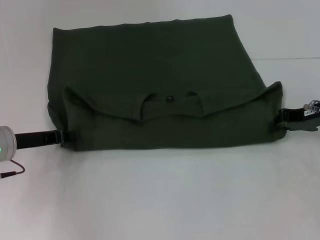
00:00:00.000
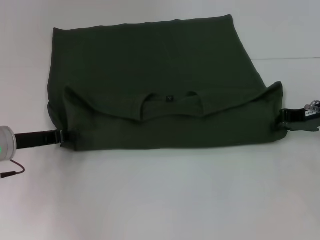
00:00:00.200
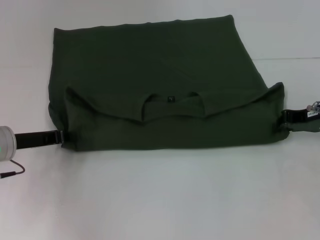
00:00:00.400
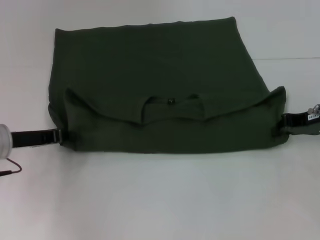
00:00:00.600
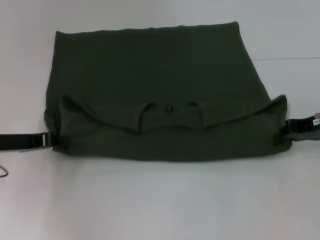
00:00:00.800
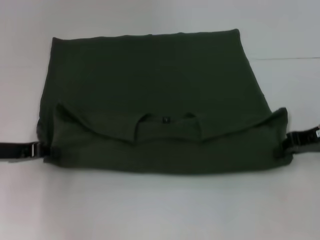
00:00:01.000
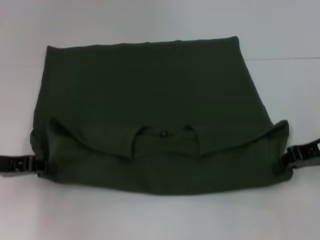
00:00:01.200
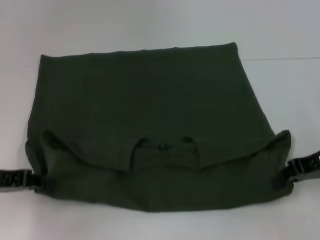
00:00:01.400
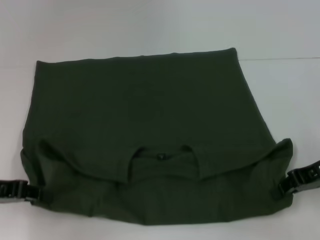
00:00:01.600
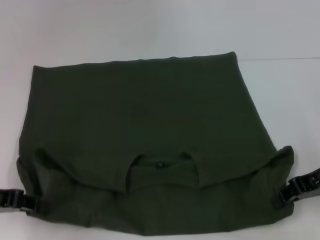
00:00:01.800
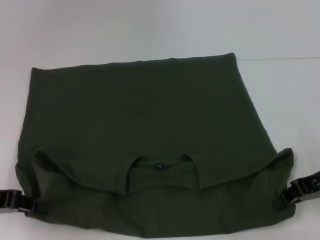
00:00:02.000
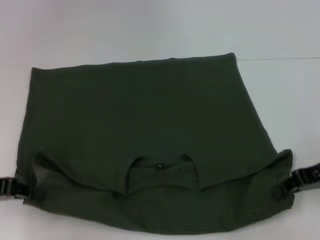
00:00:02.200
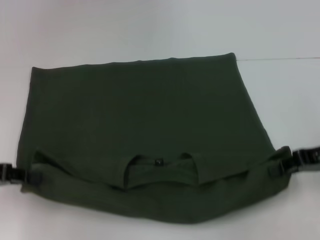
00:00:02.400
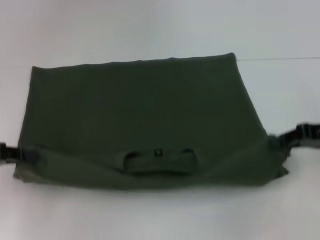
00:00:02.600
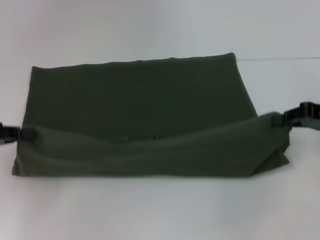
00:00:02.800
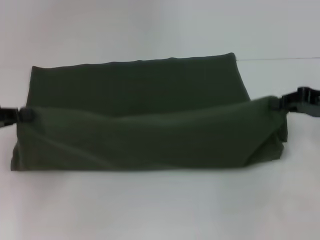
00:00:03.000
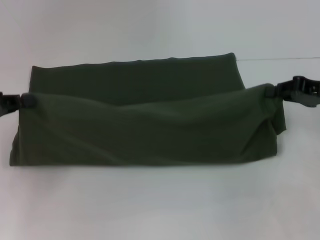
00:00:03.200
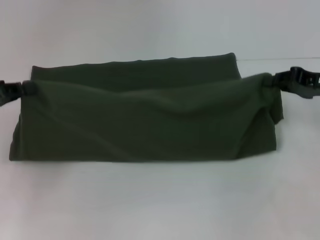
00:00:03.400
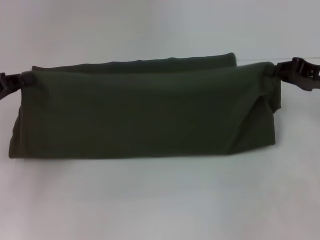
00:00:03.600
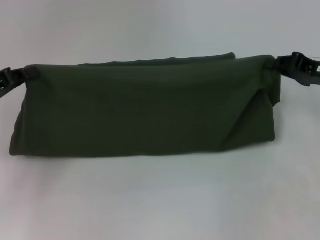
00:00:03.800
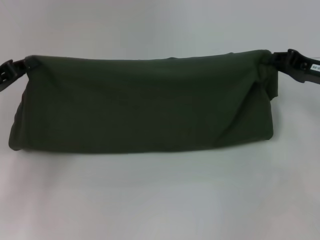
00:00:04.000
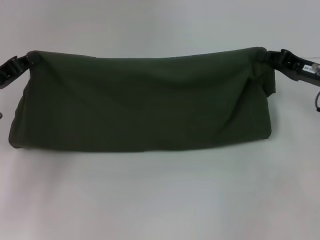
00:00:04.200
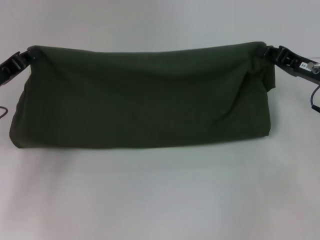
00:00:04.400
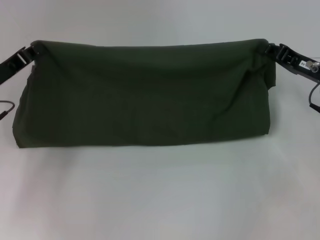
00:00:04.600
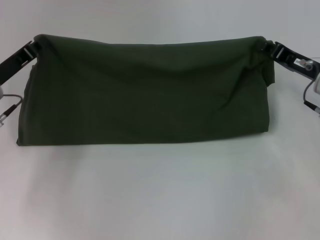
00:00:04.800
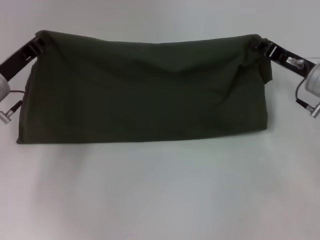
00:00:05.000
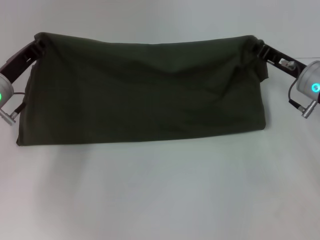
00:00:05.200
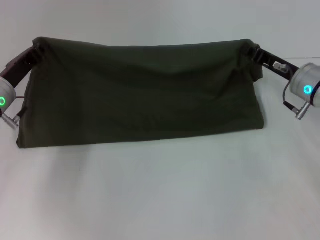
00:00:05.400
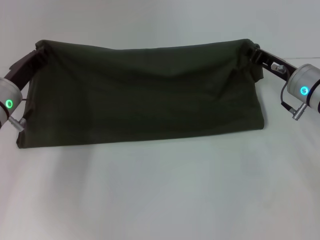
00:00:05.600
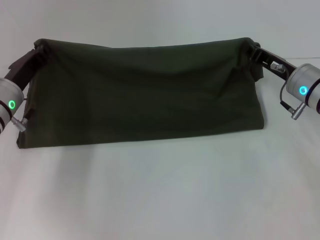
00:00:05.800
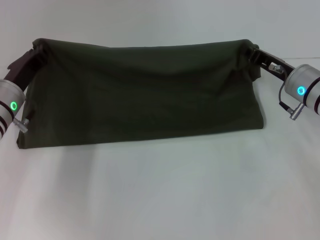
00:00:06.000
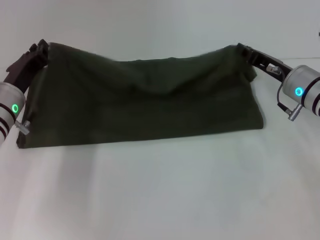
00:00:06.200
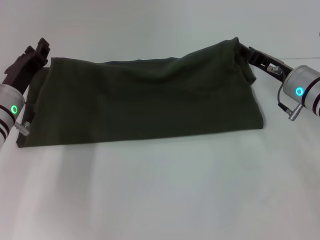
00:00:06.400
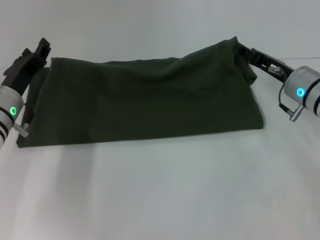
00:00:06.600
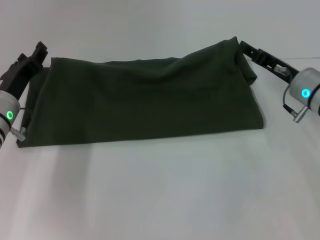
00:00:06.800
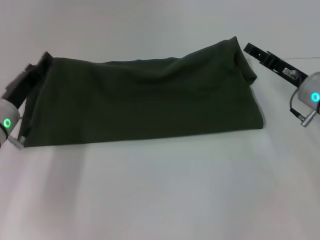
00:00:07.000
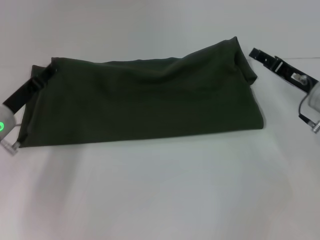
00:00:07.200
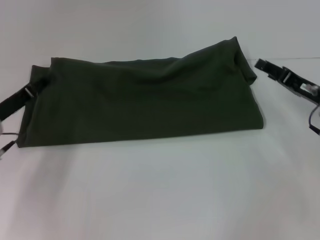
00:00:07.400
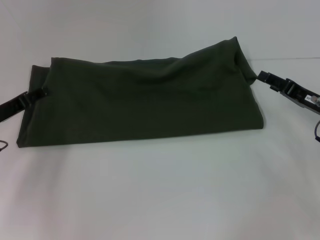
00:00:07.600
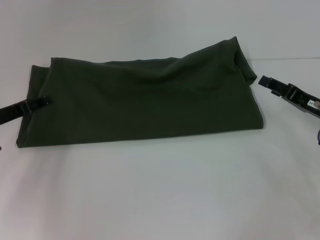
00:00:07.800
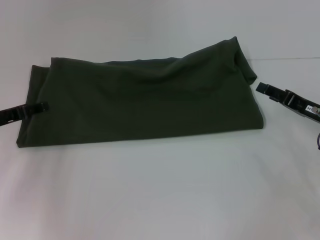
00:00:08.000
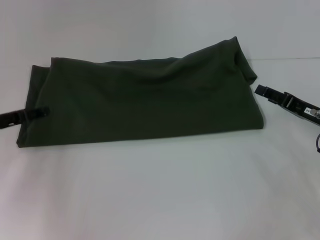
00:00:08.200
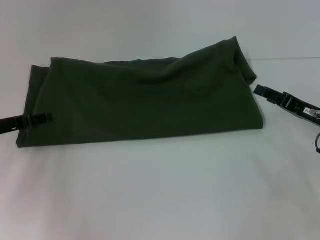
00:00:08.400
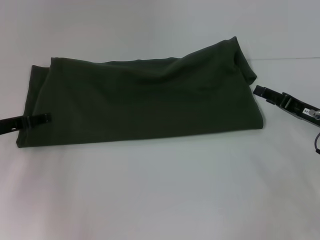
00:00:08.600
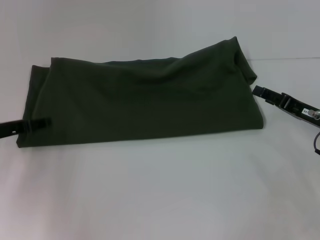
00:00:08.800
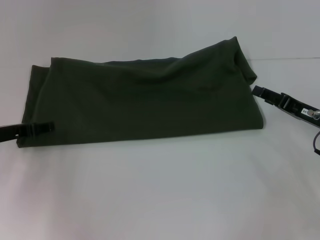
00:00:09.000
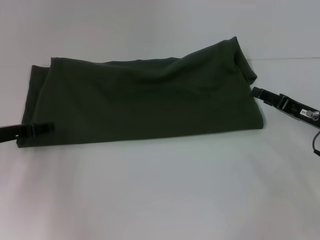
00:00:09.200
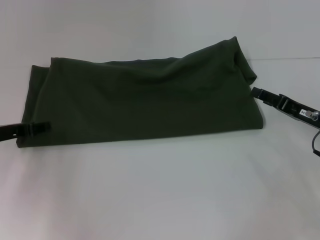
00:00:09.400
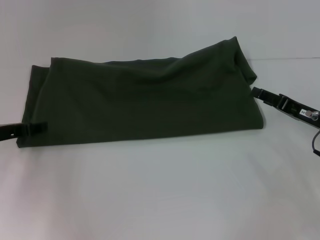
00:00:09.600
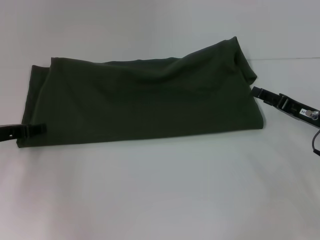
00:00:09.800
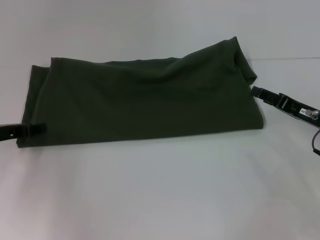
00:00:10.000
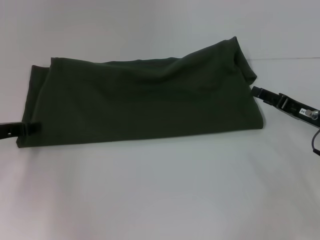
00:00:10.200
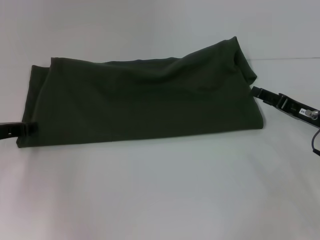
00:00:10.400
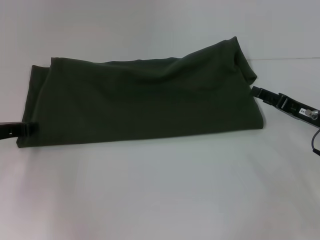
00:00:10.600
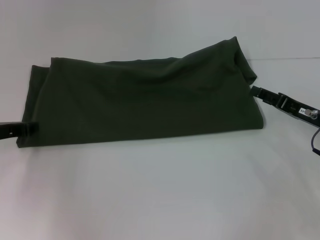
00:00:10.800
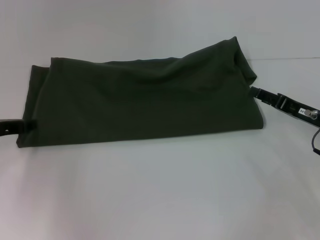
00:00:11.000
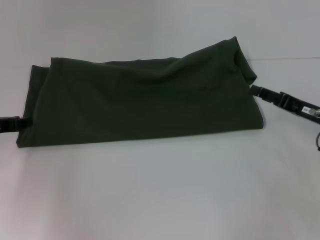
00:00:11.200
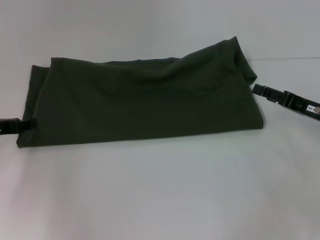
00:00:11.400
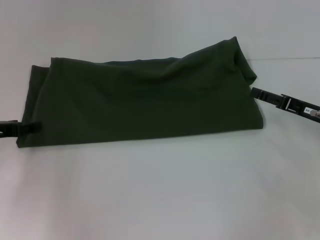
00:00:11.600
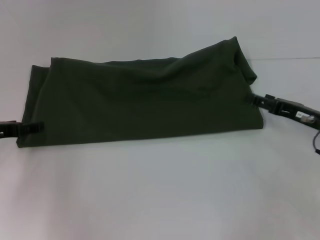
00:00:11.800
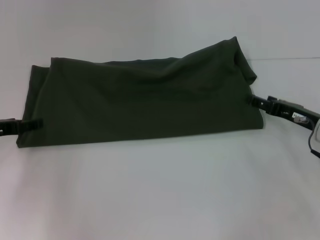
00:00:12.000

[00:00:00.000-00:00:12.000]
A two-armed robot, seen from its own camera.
Step, 00:00:00.000 to 00:00:02.000: Pull the clothes with your left hand.
Step, 00:00:00.000 to 00:00:02.000: Pull the clothes with your right hand.
Step, 00:00:02.200 to 00:00:06.400: Fold the clothes with your left hand.
Step, 00:00:02.200 to 00:00:06.400: Fold the clothes with your right hand.
00:00:00.000 to 00:00:01.600: The two grippers go approximately 5 cm backward.
00:00:01.600 to 00:00:03.000: The left gripper changes place by about 5 cm, while the right gripper shifts by about 5 cm.
00:00:03.000 to 00:00:04.400: The left gripper is displaced forward by approximately 5 cm. Meanwhile the right gripper shifts by about 5 cm.
00:00:04.400 to 00:00:06.000: The left gripper heads to the right, covering roughly 5 cm. The right gripper ends up about 5 cm from where it was.
00:00:06.000 to 00:00:07.600: The right gripper heads to the right and backward, covering approximately 10 cm, and opens, while the left gripper shifts some 5 cm to the left, and opens.

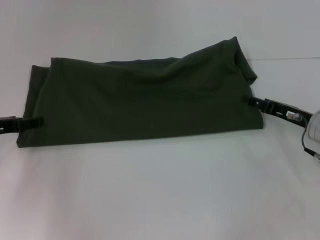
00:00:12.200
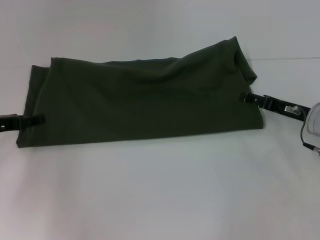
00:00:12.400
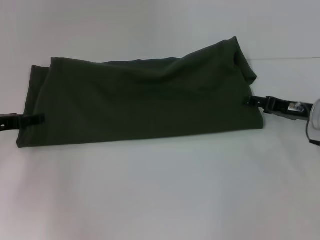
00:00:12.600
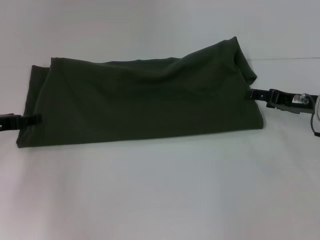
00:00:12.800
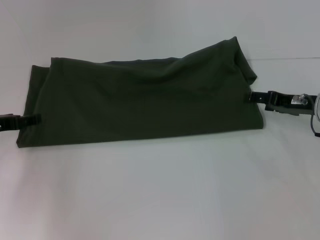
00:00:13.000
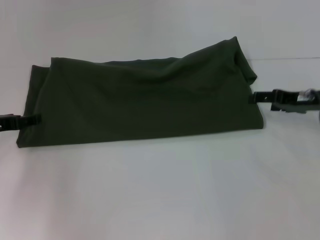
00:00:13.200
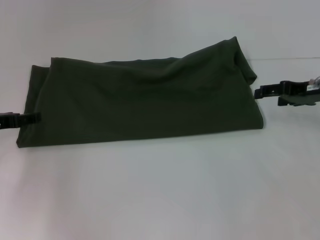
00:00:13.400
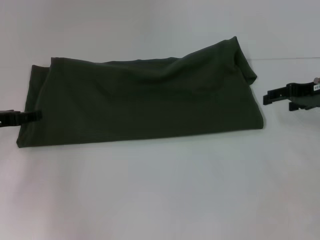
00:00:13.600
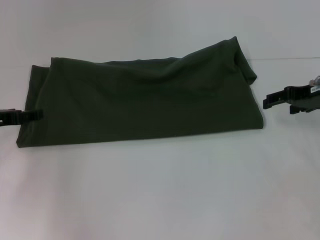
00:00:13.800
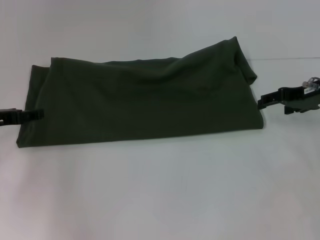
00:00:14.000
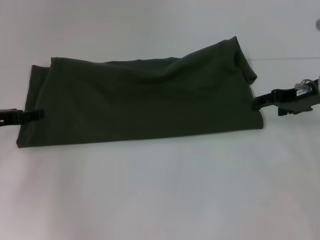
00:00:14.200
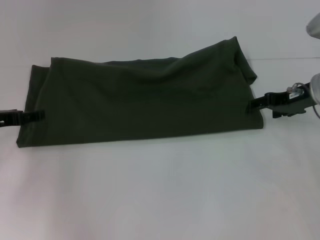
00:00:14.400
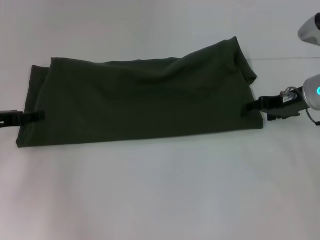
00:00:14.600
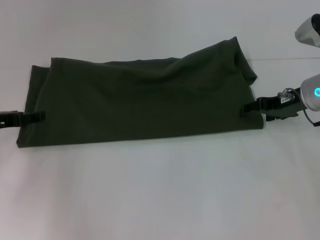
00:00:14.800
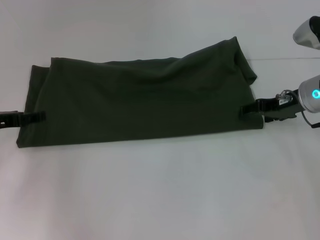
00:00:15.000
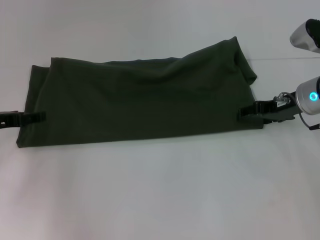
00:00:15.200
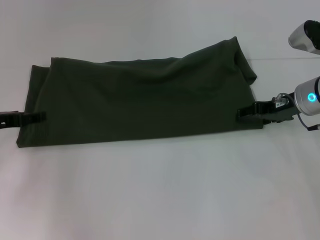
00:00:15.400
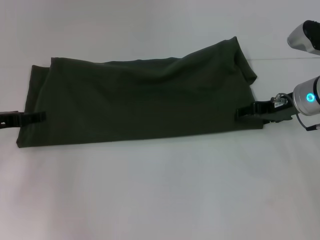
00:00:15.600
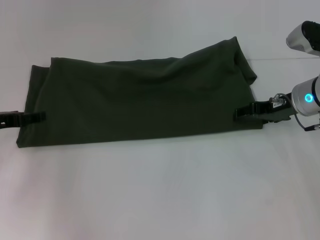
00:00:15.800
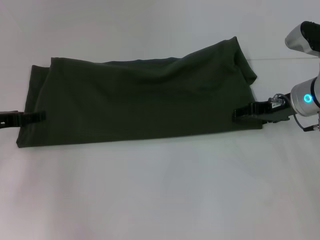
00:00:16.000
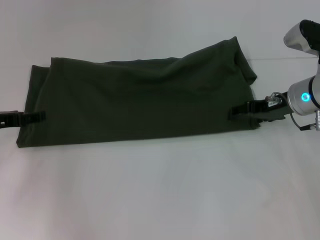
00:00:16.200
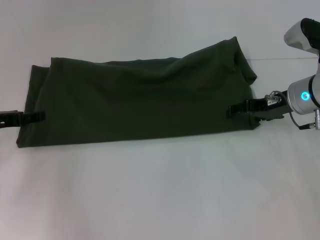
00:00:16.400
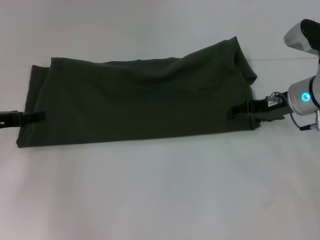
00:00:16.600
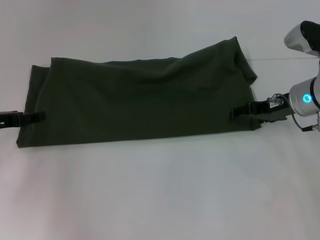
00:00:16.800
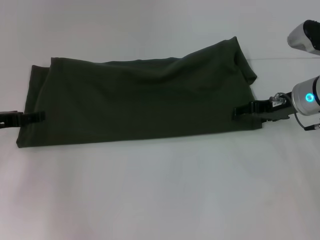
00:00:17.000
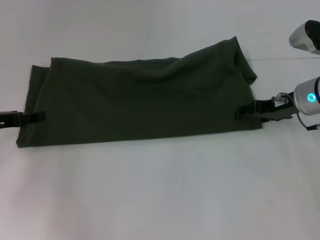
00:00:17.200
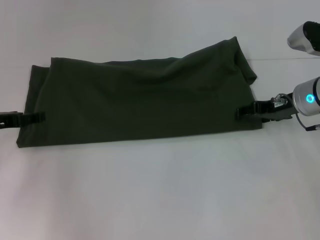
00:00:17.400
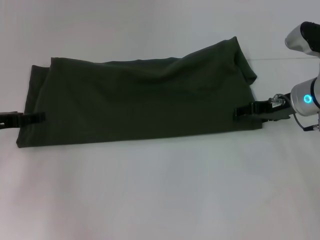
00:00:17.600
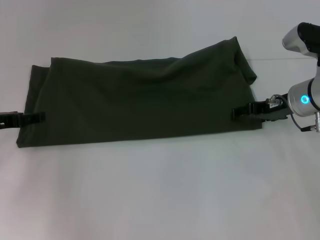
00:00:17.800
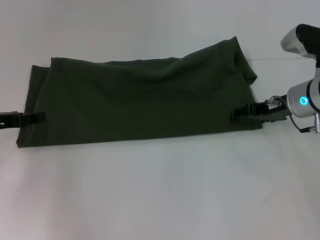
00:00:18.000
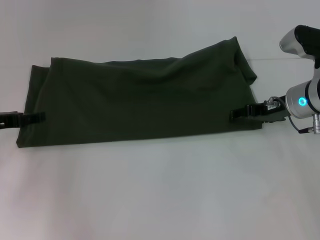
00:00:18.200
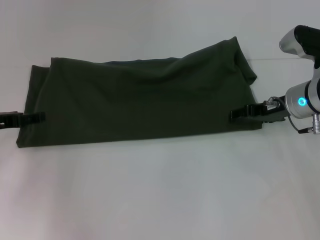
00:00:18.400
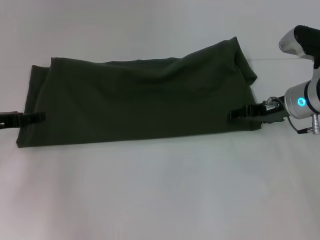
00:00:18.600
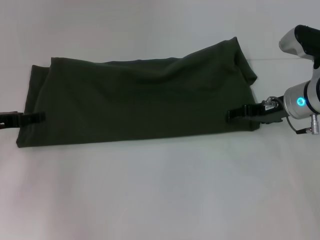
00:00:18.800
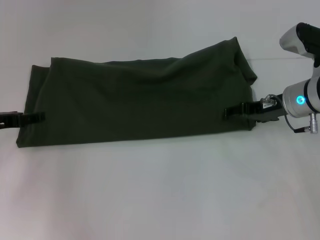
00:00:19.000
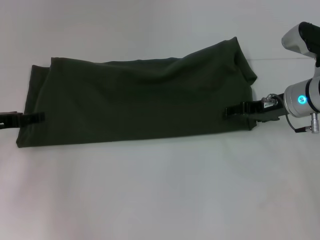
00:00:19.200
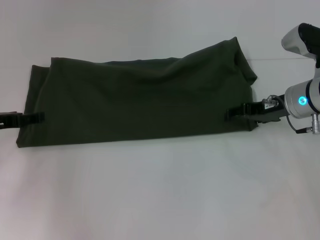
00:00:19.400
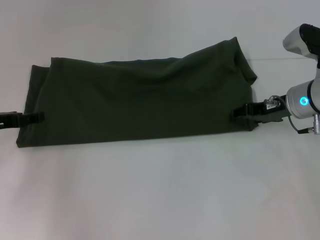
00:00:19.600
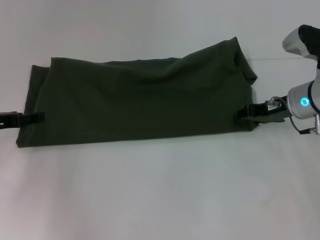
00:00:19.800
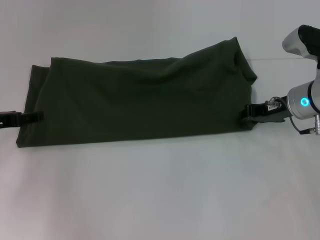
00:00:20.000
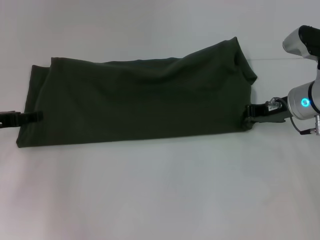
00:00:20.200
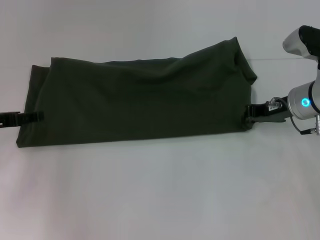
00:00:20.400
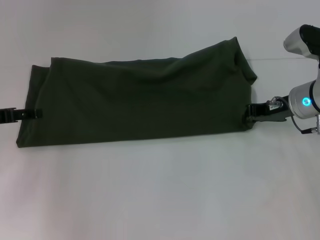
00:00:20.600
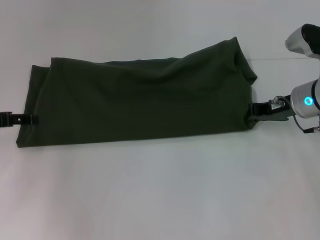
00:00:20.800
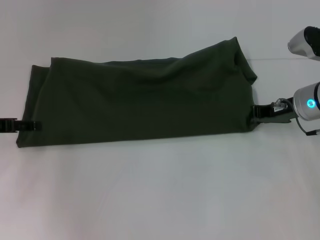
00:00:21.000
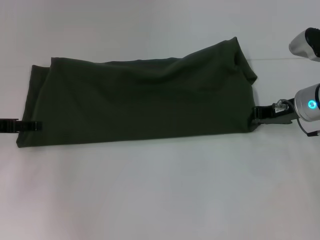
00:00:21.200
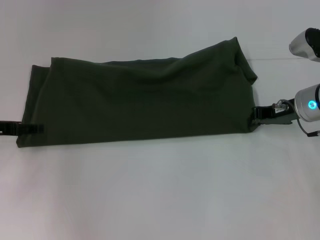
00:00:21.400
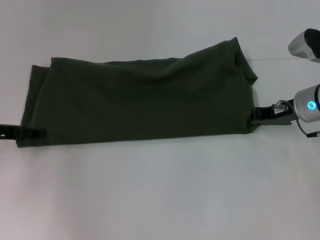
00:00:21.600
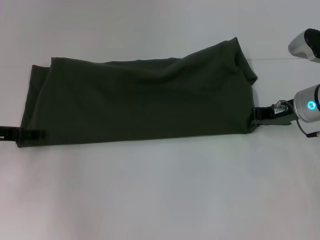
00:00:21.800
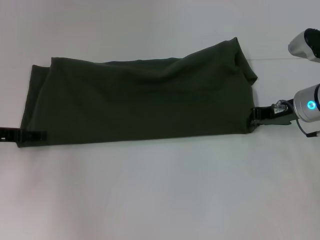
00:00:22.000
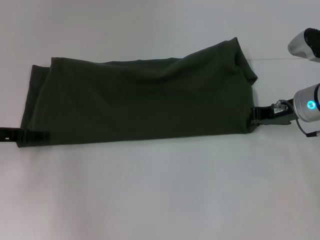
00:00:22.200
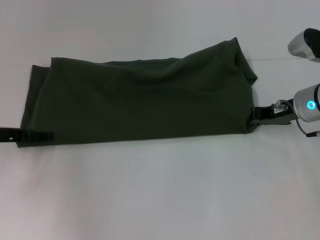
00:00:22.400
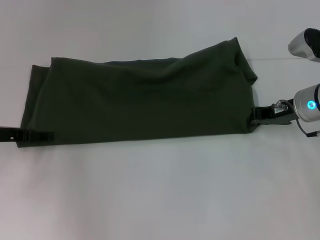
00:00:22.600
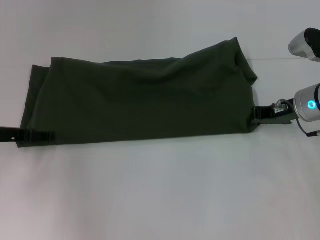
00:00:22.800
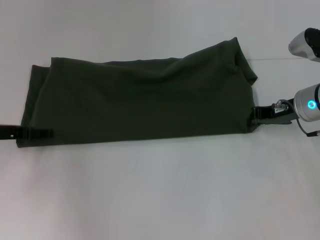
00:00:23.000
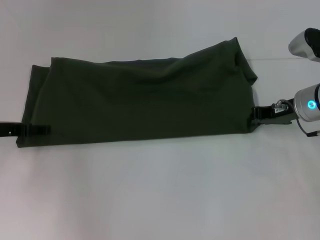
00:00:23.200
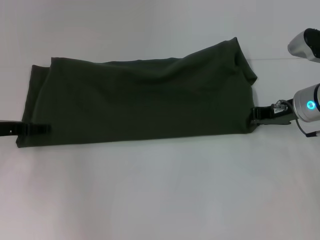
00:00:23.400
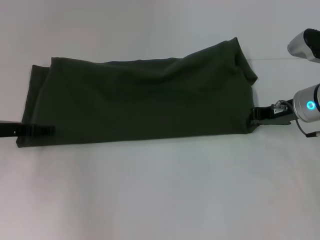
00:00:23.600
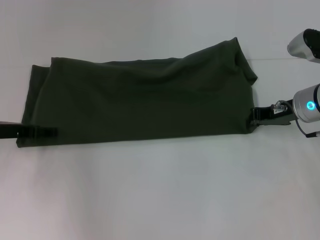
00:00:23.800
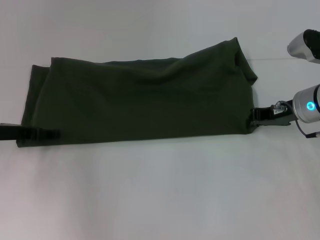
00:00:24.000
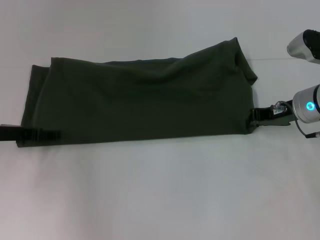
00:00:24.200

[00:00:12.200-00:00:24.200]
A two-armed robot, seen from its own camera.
00:00:12.200 to 00:00:13.800: The right gripper is displaced upward by roughly 10 cm.
00:00:13.800 to 00:00:15.200: The right gripper moves some 5 cm.
00:00:15.200 to 00:00:16.600: Both grippers stay about where they are.
00:00:16.600 to 00:00:18.200: Both grippers stay about where they are.
00:00:18.200 to 00:00:19.800: The grippers move only a little.
00:00:19.800 to 00:00:21.200: The right gripper closes up.
00:00:21.200 to 00:00:24.200: The grippers stay close to where they were, moving slightly.
